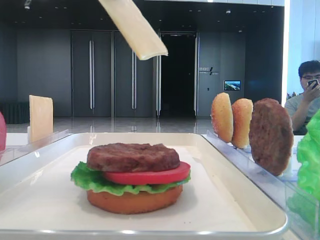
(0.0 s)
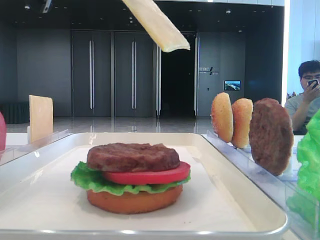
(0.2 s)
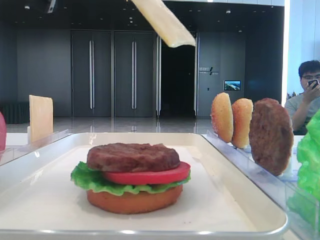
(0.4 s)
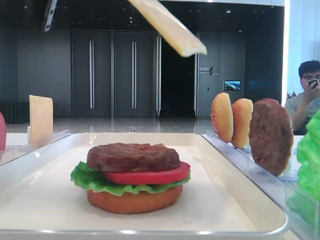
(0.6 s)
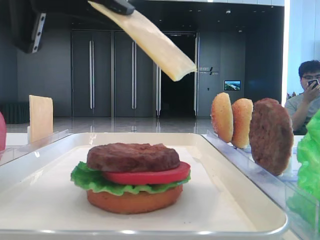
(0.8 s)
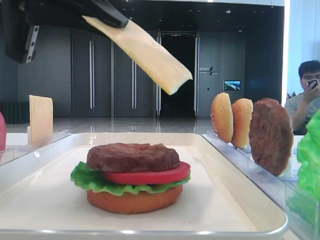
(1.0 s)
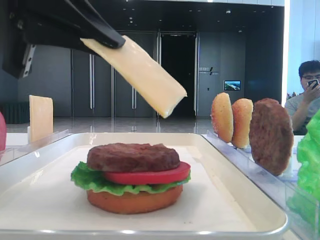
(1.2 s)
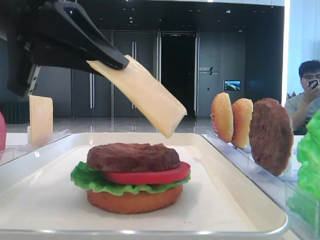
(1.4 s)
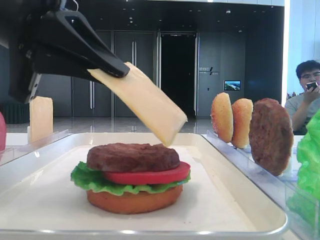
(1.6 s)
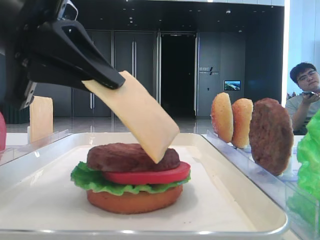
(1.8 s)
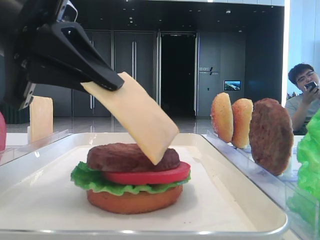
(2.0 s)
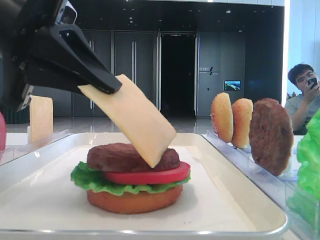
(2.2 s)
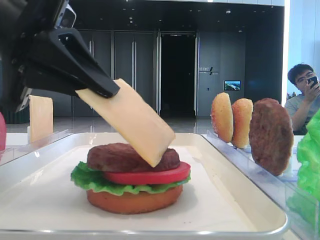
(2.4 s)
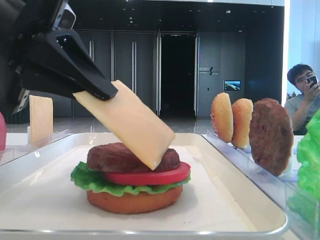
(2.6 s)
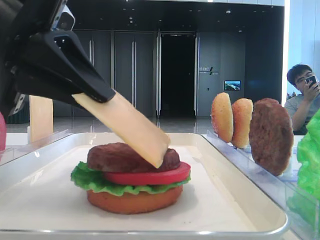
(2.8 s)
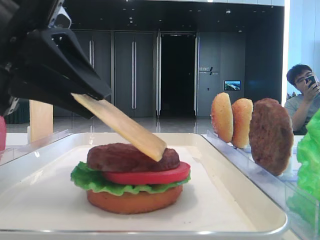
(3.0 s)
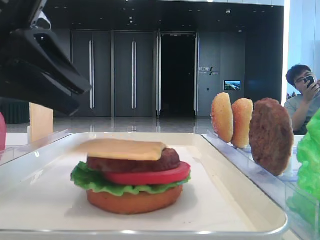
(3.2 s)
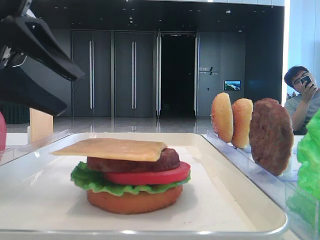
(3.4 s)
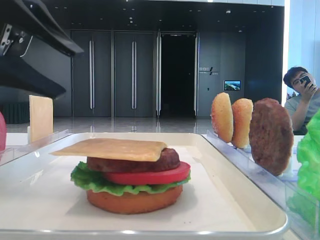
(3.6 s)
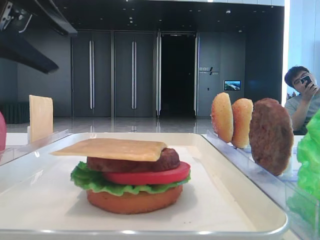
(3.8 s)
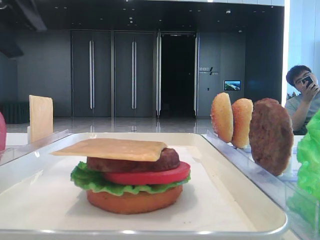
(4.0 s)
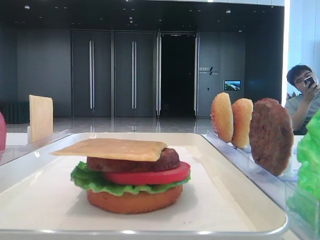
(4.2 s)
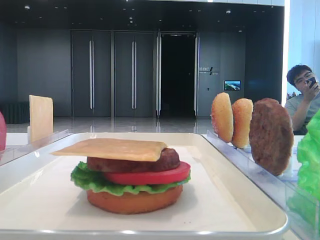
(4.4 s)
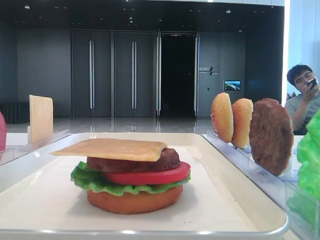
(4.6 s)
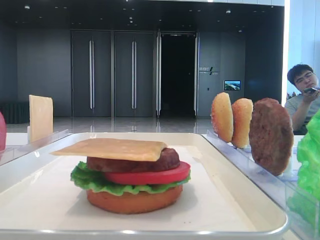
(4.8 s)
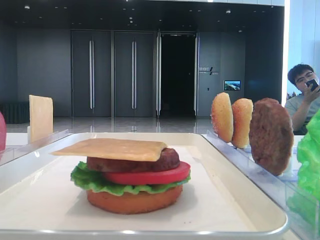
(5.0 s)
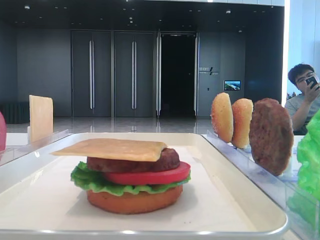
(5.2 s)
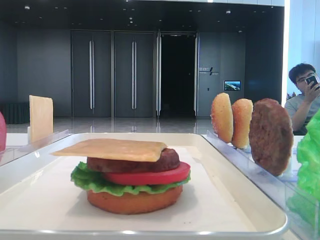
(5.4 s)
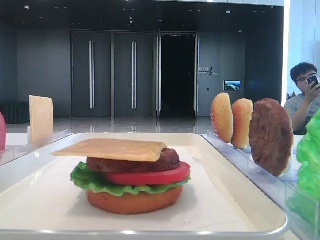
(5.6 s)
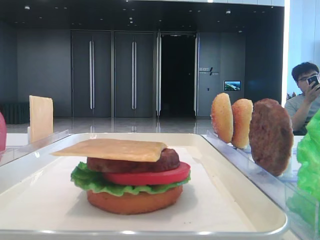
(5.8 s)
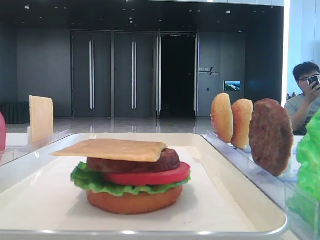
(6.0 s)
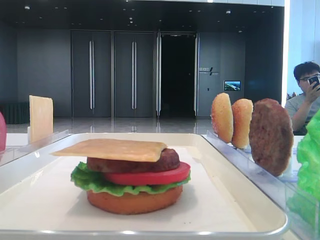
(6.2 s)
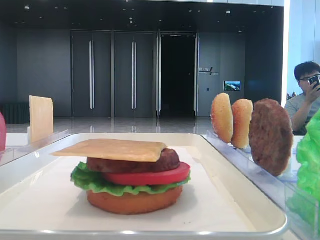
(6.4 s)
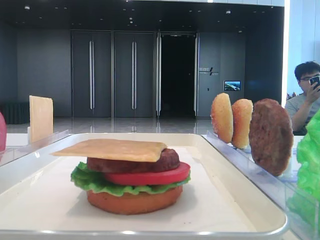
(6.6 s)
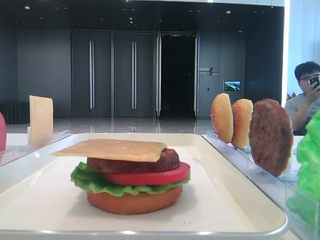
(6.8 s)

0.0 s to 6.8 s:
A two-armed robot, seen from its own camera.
Step, 0.0 to 3.0 s: Place the cheese slice on the patty with the left hand.
0.0 to 1.4 s: The left gripper is displaced downward by roughly 10 cm.
1.4 to 2.8 s: The grippers move only a little.
2.8 to 4.0 s: The left gripper is displaced upward, to the left and forward by some 15 cm, and opens its fingers.
4.0 to 5.4 s: The left gripper is displaced backward, upward and to the left by roughly 20 cm.

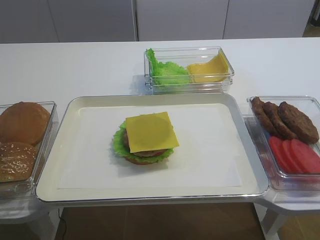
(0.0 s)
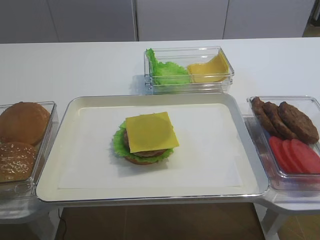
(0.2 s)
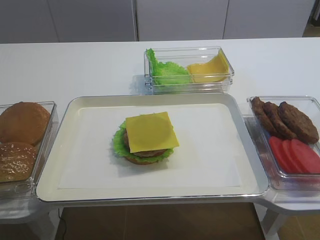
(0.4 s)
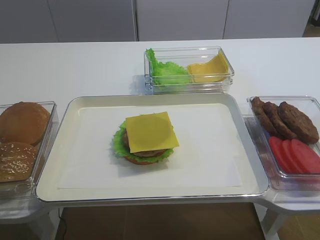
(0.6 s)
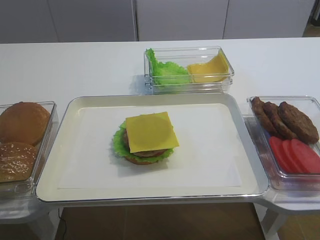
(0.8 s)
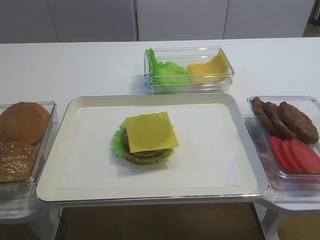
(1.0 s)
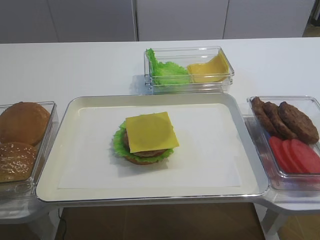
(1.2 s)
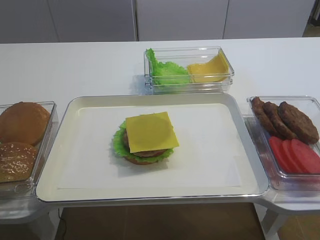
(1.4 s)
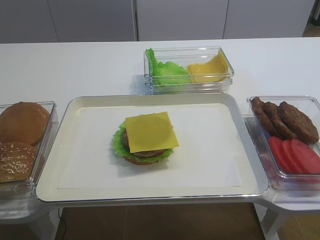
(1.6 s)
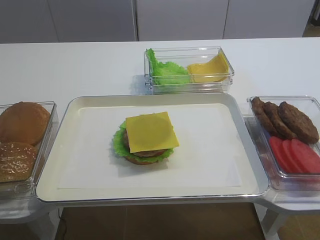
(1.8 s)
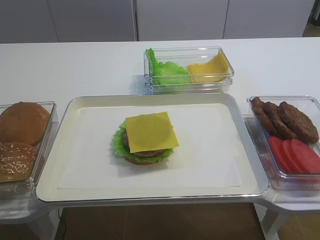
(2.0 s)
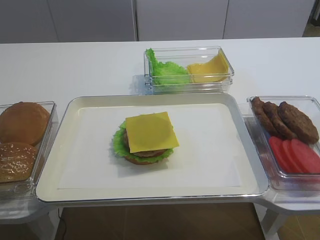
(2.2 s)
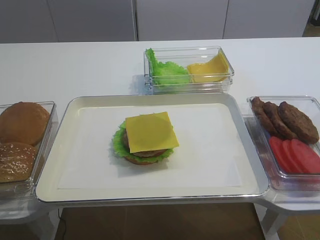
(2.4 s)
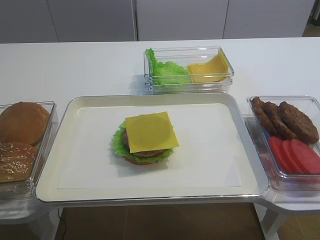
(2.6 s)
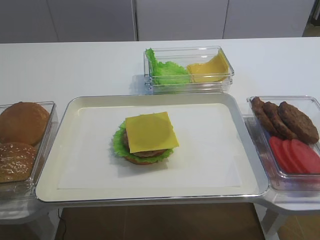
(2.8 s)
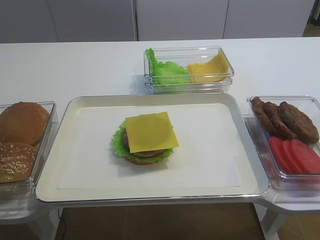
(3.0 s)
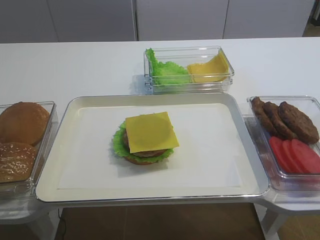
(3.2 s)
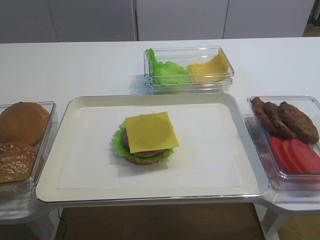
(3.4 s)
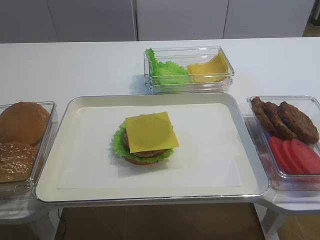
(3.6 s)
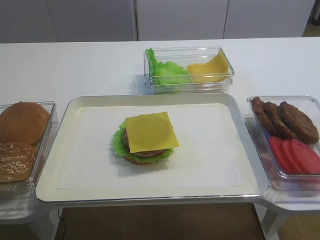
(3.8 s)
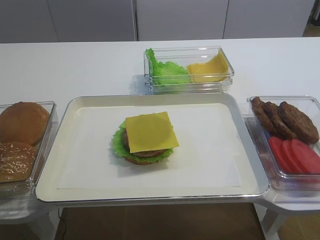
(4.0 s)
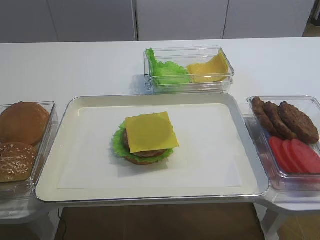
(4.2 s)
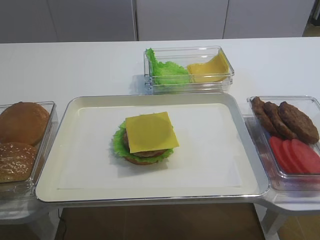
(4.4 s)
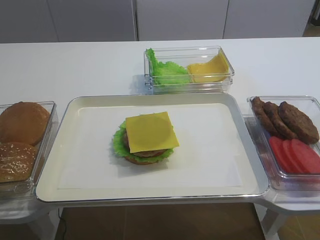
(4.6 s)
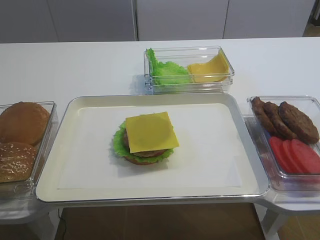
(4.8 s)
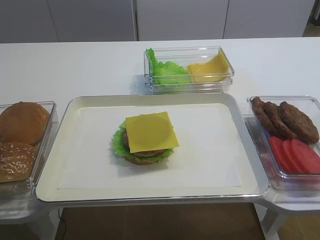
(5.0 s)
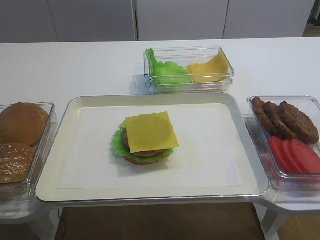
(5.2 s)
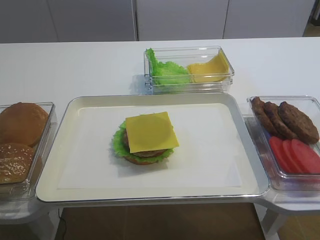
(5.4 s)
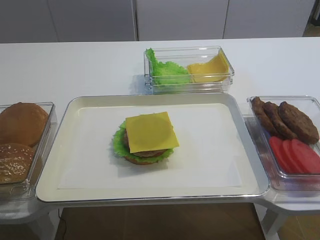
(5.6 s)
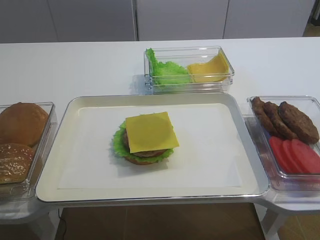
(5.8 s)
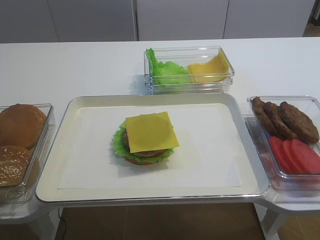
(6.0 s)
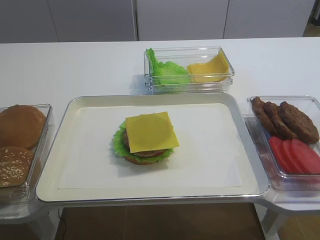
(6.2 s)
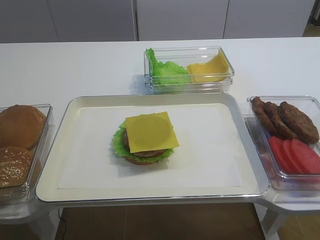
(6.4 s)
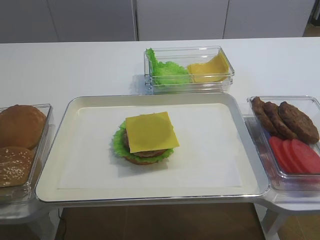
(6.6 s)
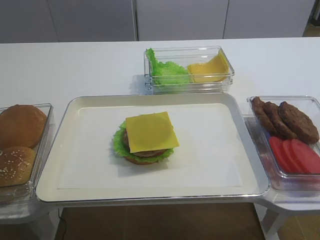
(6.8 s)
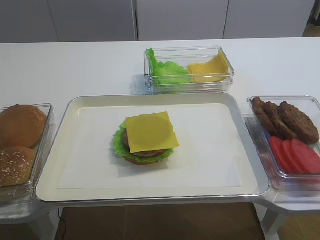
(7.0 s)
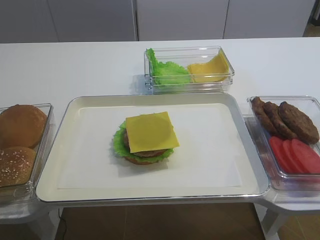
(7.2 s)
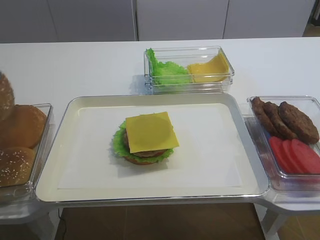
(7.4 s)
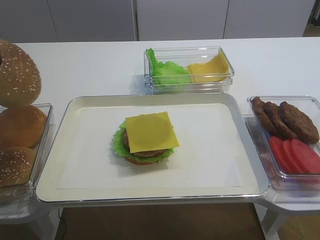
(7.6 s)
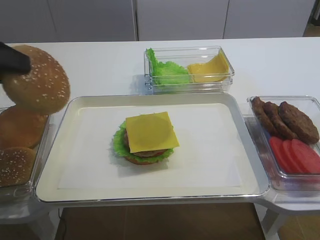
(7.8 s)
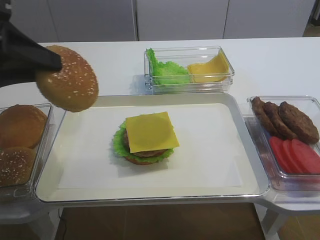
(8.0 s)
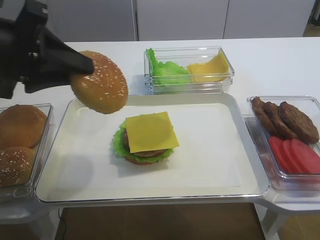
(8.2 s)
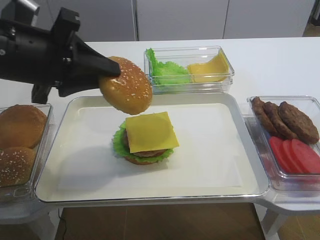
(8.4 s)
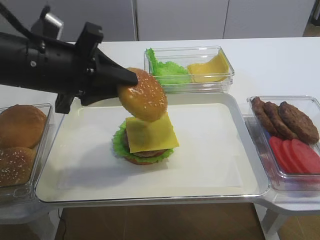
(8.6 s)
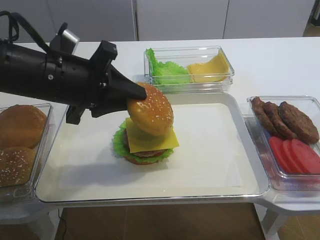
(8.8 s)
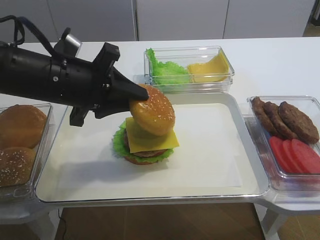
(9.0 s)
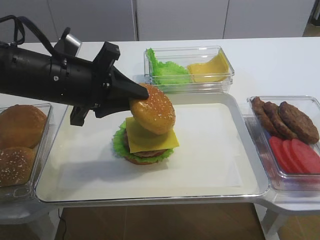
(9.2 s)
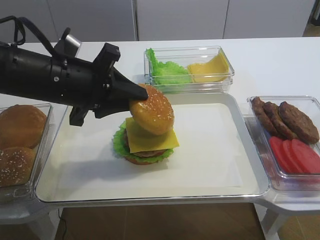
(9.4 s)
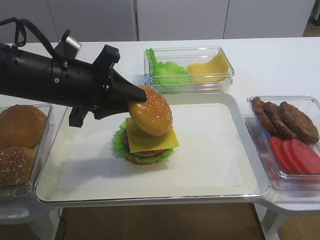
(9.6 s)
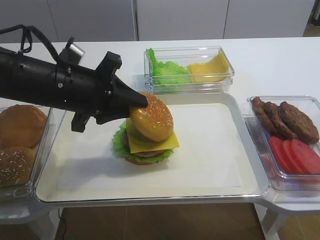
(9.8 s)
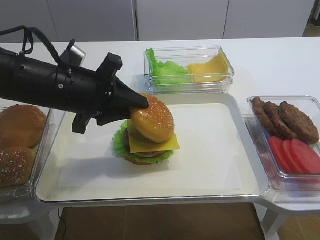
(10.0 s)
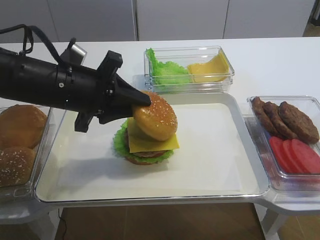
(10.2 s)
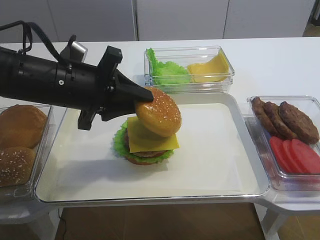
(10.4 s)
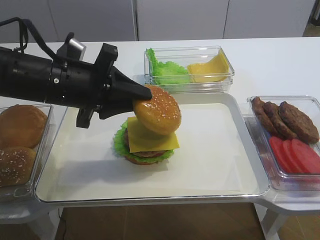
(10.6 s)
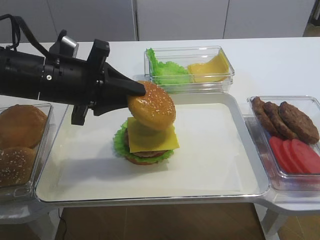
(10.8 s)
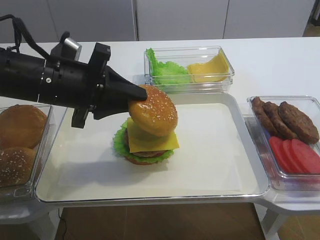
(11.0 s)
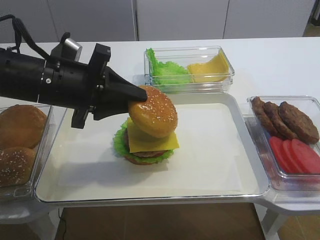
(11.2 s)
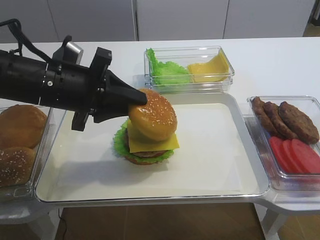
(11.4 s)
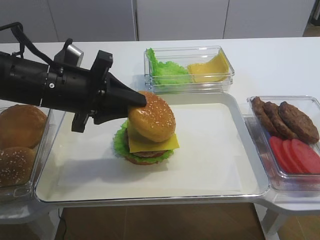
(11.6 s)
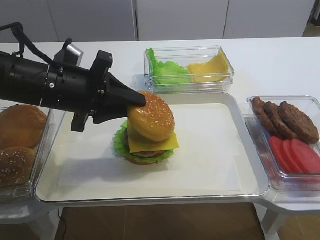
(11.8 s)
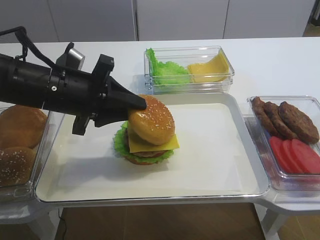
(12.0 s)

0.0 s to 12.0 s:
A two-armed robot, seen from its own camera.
4.4 to 6.0 s: The left gripper closes up.
6.0 to 7.6 s: The left gripper heads upward and to the right, covering some 10 cm.
7.6 to 9.0 s: The left gripper travels to the right, downward and forward by some 20 cm.
9.0 to 12.0 s: The grippers make only small movements.

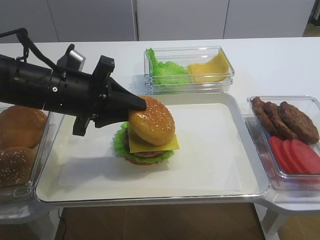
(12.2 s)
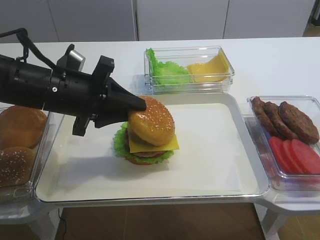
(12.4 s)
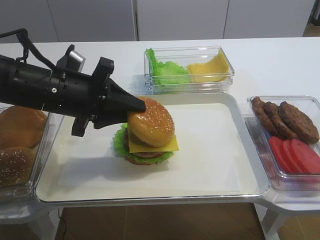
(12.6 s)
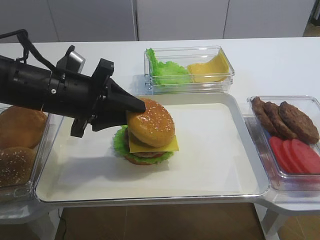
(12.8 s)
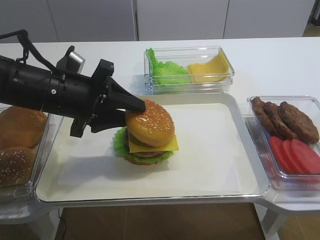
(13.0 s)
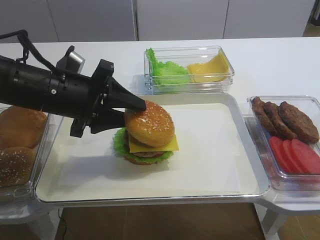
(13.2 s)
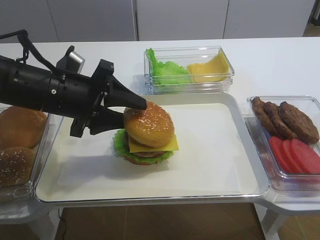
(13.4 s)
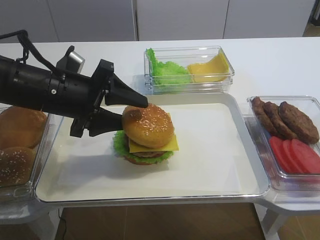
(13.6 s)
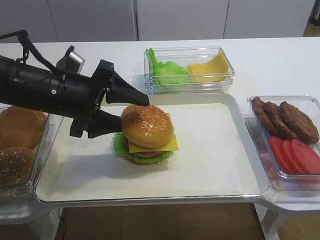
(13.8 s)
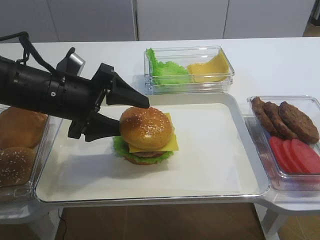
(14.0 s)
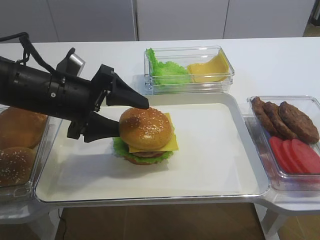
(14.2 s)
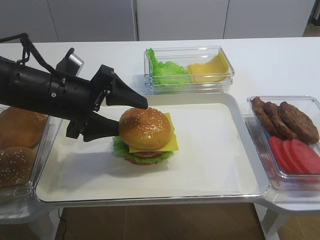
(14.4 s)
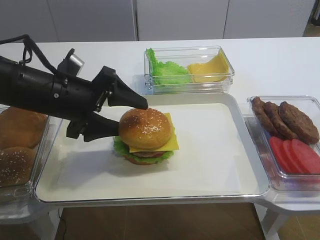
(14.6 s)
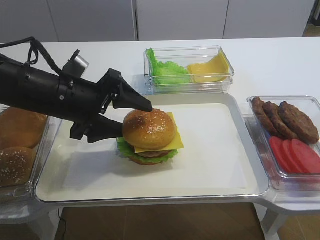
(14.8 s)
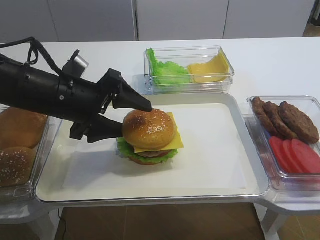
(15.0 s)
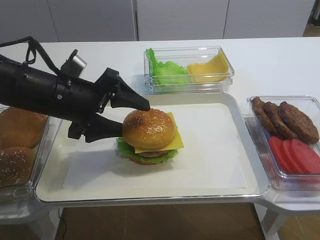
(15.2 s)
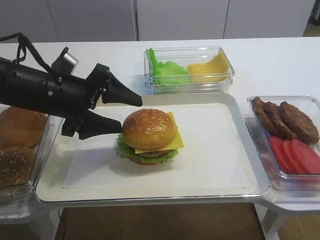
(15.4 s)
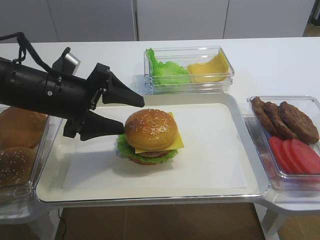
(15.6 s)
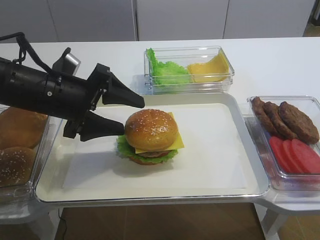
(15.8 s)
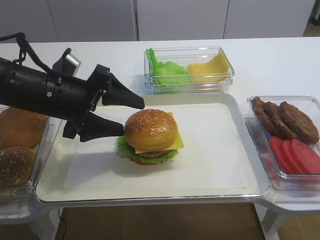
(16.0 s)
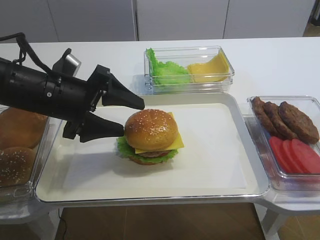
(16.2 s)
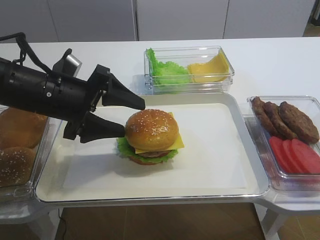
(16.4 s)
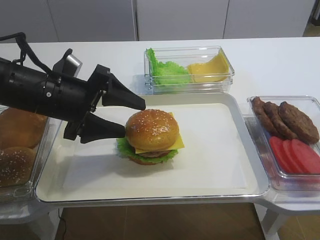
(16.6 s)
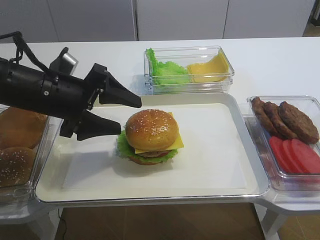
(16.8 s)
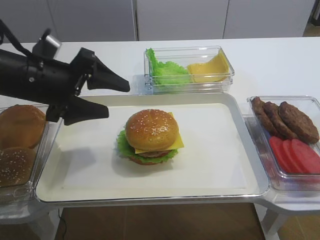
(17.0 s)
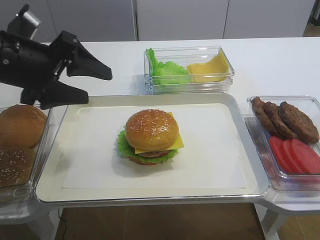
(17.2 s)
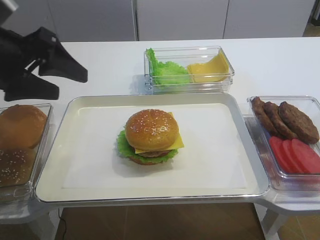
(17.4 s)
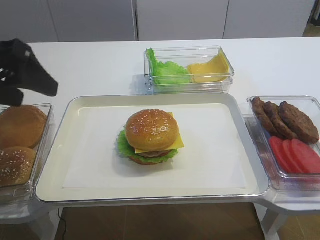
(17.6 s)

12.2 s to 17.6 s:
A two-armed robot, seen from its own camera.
Step, 12.2 to 17.2 s: Place the hamburger lid on the cheese slice with the left gripper.
12.2 to 13.6 s: The left gripper opens its fingers.
13.6 to 16.2 s: The grippers stay close to where they were, moving slightly.
16.2 to 17.6 s: The left gripper goes some 15 cm upward, to the left and backward.
